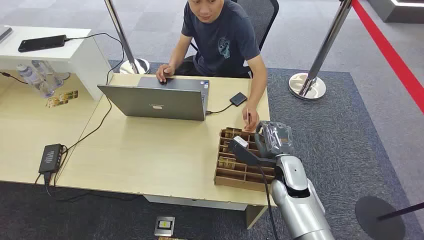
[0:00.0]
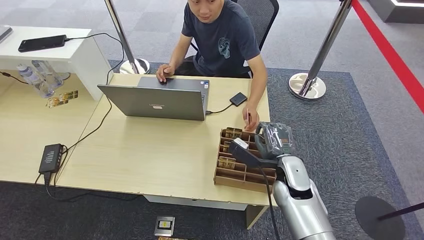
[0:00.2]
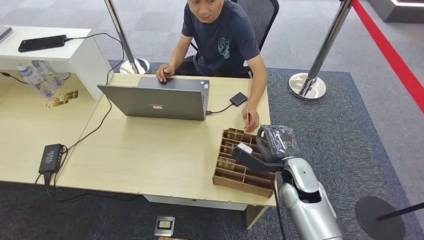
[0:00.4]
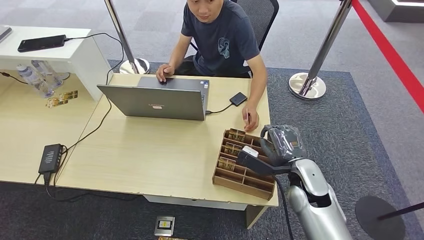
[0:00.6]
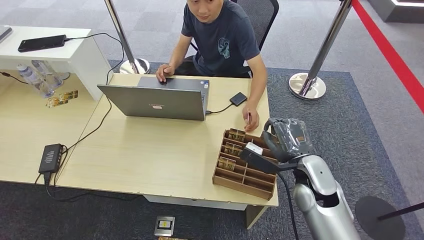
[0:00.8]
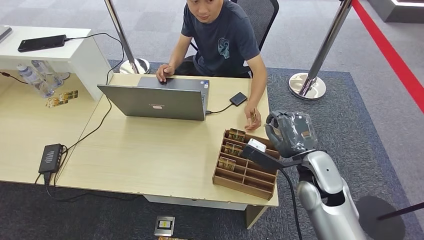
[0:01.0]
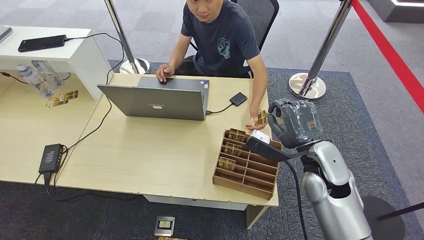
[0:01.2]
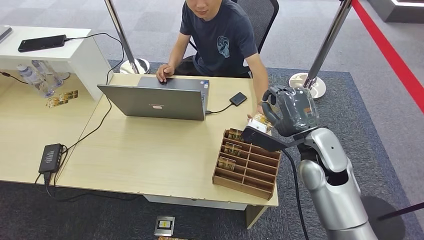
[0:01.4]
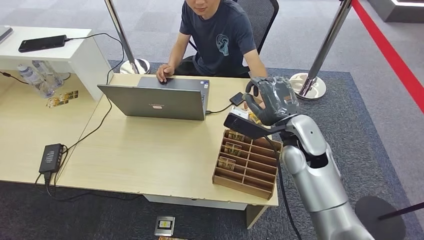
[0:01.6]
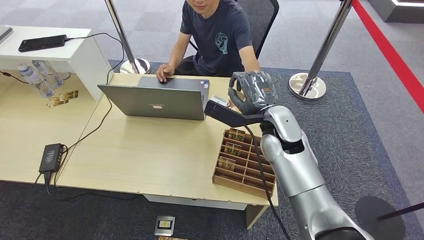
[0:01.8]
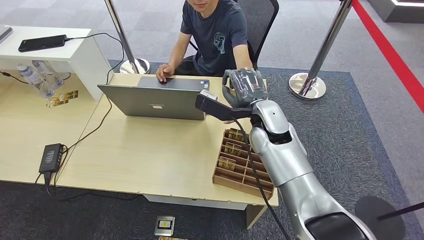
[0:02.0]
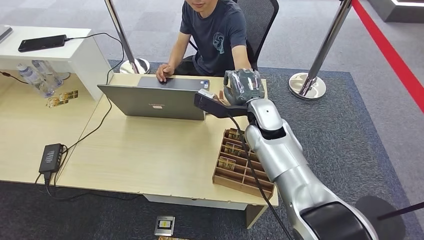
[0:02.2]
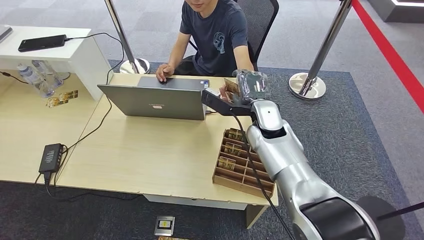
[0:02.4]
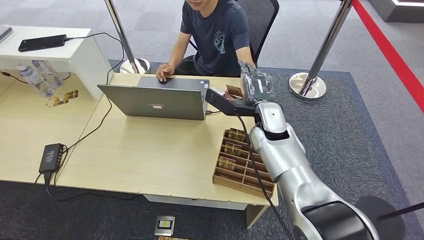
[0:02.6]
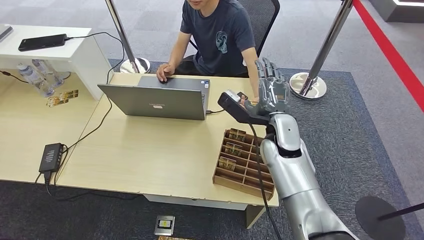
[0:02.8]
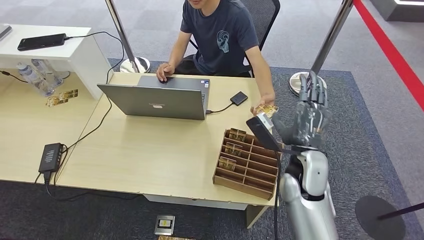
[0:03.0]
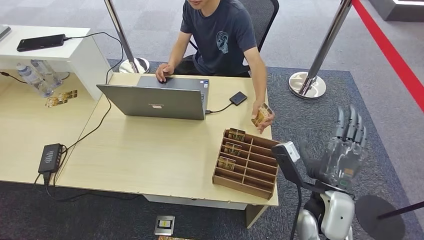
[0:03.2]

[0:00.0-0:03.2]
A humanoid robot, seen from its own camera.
Step, 0:00.0 to 0:01.4: Pick up the room card from the card holder.
Step, 0:01.6 to 0:03.2: Hand the room card to the target.
0:01.6 to 0:03.2: The right hand shifts approximately 15 cm backward and downward.

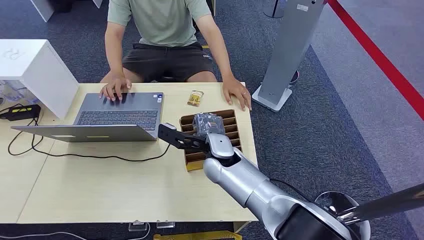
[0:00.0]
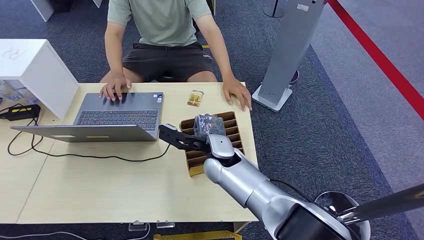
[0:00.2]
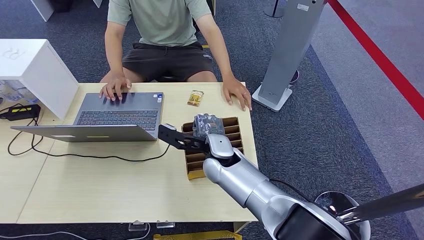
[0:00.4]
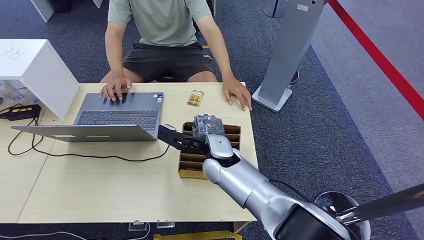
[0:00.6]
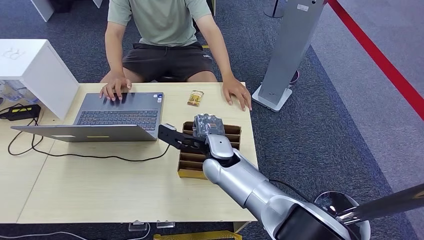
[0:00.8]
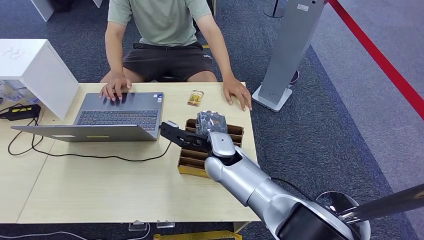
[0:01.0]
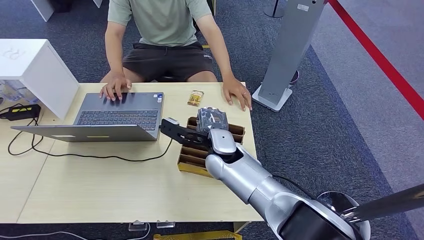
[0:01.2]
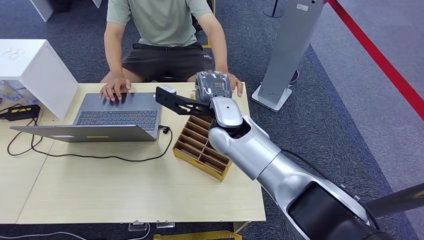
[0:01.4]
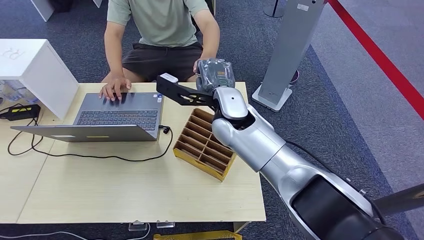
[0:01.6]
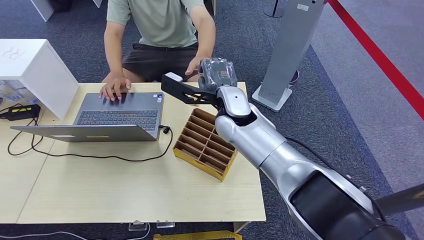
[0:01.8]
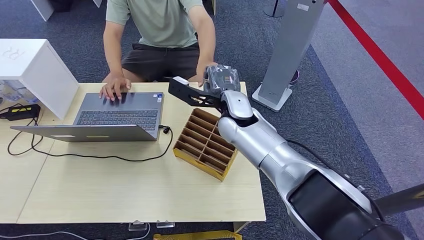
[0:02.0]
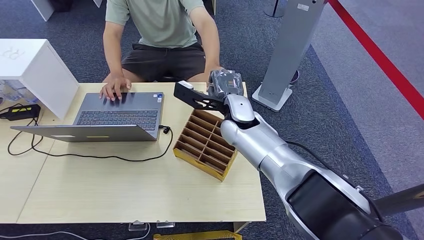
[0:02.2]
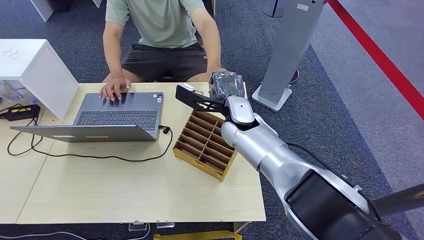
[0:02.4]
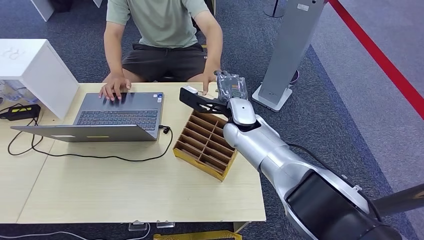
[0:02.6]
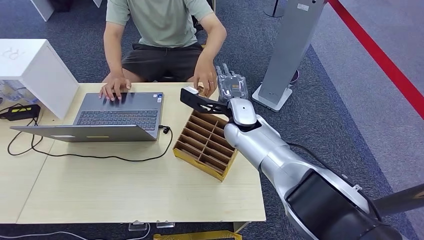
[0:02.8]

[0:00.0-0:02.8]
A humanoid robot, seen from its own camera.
Step, 0:00.0 to 0:01.2: Pick up the room card from the card holder.
Step, 0:01.4 to 0:02.8: Hand the room card to the target.
0:01.4 to 0:02.8: The right hand changes place by approximately 5 cm.
